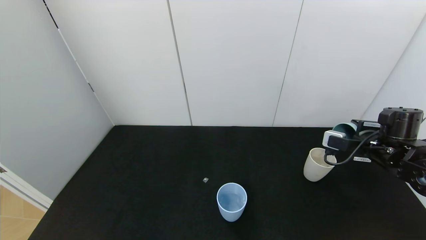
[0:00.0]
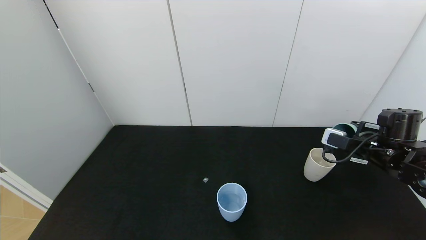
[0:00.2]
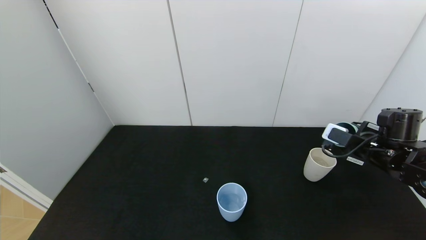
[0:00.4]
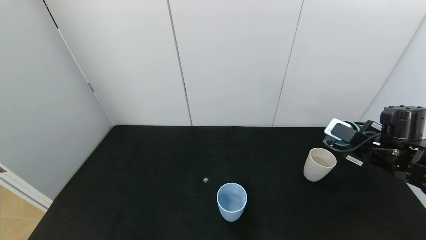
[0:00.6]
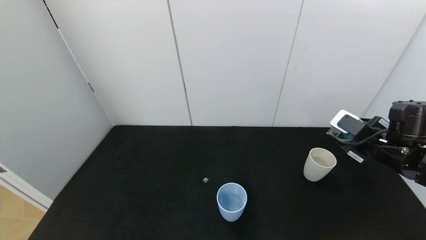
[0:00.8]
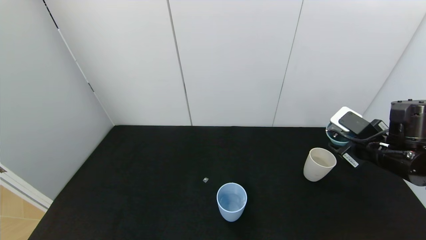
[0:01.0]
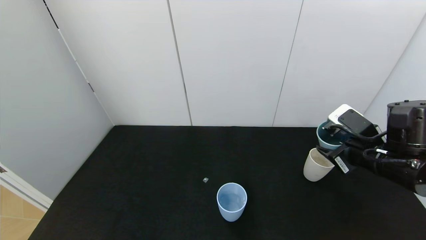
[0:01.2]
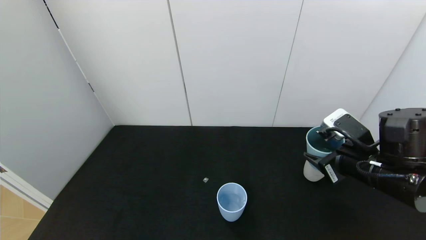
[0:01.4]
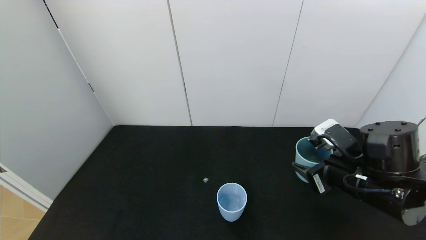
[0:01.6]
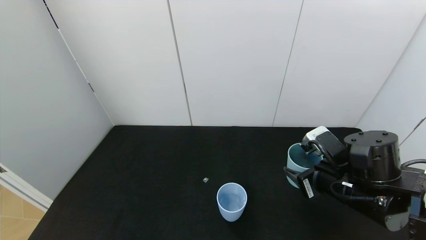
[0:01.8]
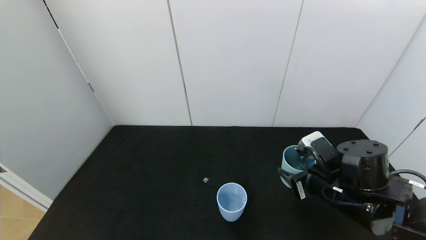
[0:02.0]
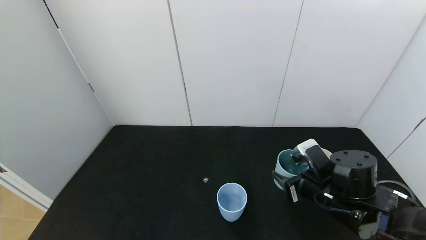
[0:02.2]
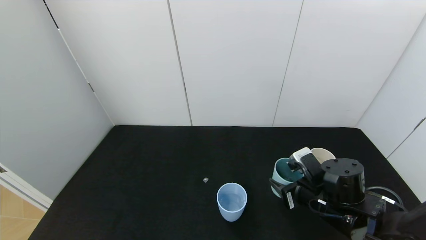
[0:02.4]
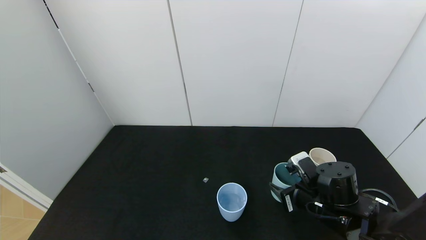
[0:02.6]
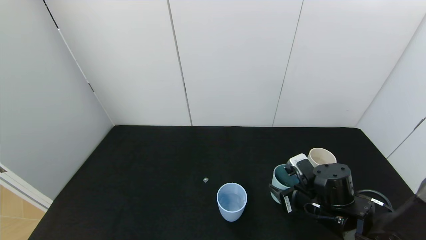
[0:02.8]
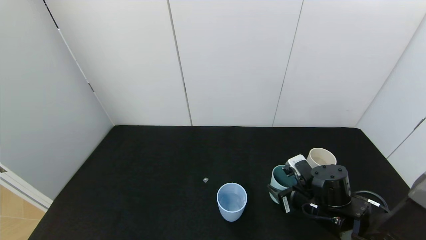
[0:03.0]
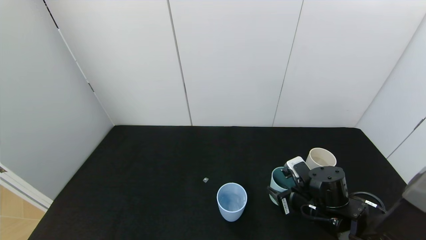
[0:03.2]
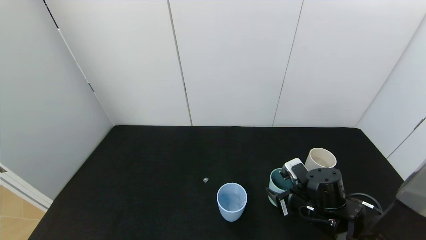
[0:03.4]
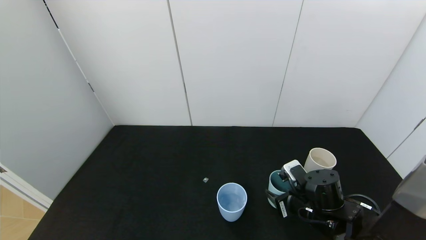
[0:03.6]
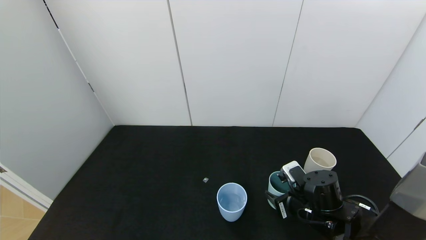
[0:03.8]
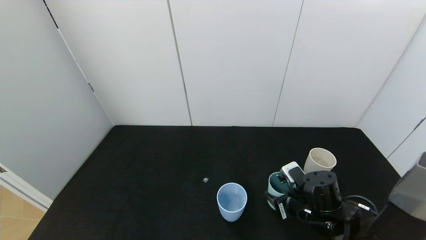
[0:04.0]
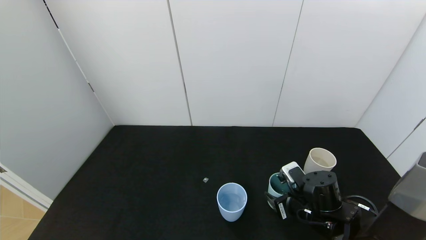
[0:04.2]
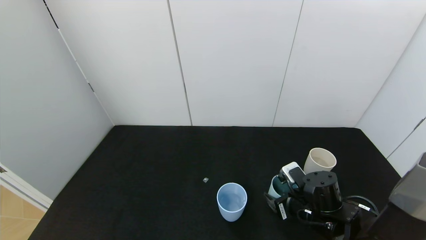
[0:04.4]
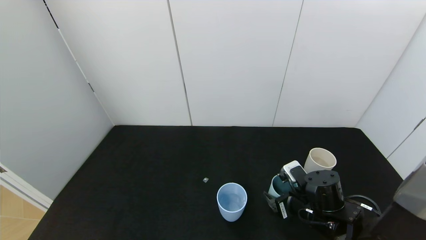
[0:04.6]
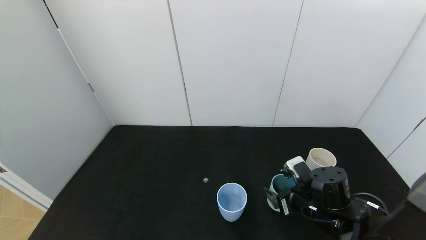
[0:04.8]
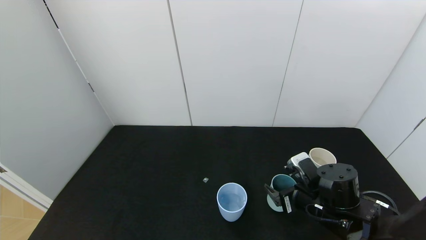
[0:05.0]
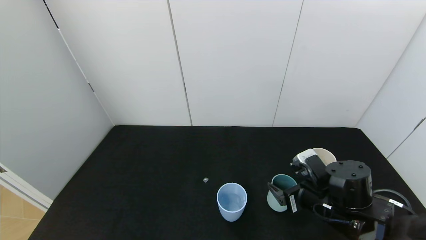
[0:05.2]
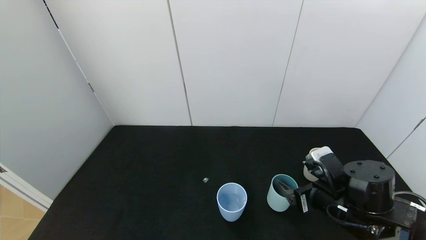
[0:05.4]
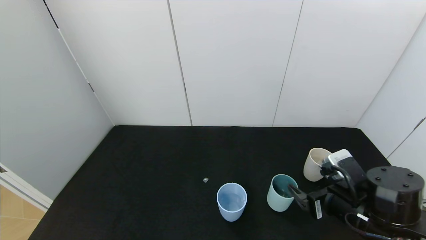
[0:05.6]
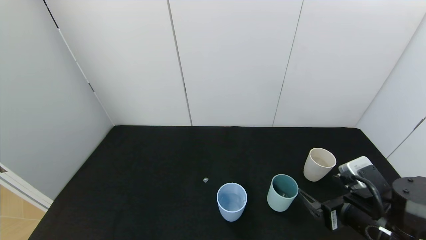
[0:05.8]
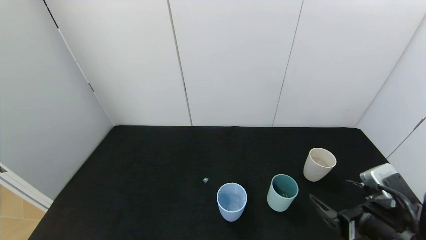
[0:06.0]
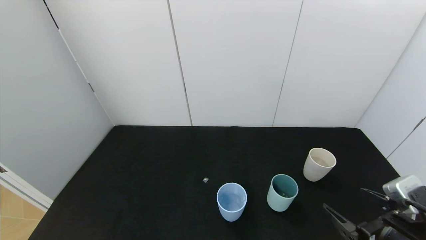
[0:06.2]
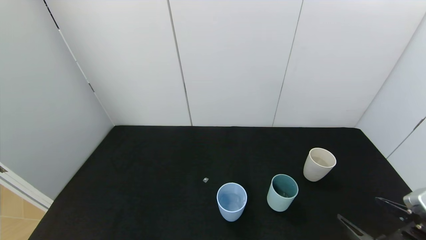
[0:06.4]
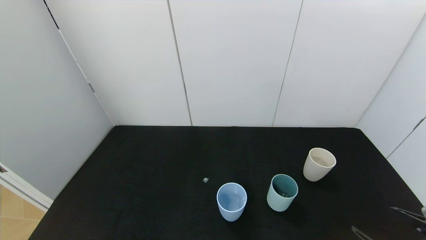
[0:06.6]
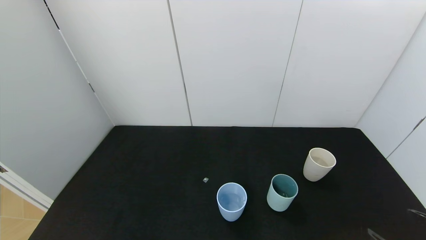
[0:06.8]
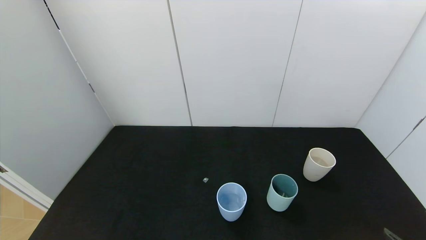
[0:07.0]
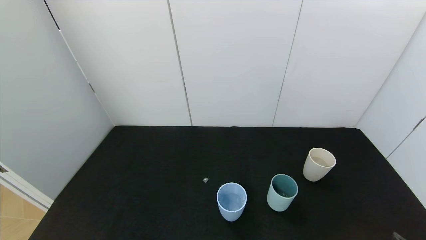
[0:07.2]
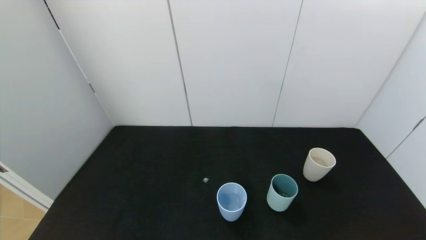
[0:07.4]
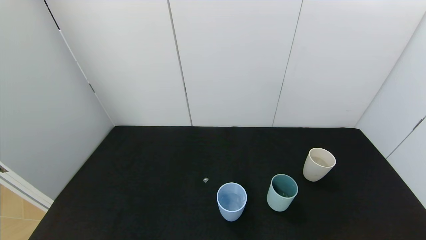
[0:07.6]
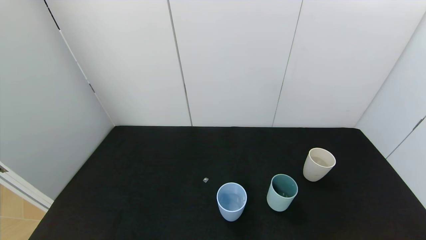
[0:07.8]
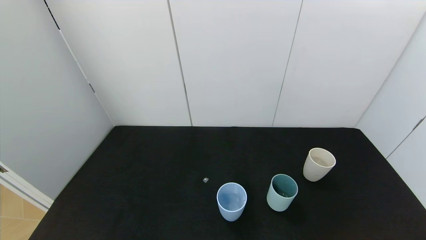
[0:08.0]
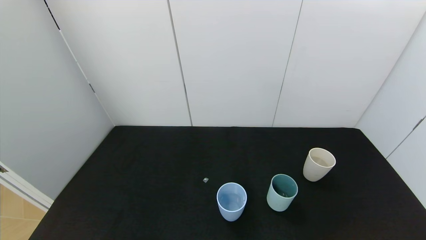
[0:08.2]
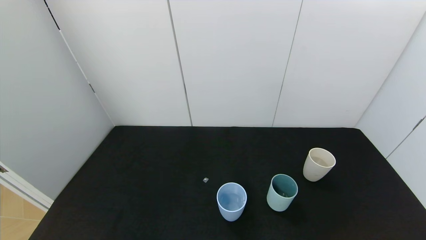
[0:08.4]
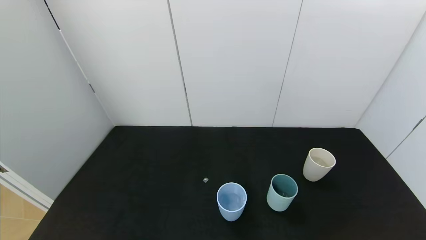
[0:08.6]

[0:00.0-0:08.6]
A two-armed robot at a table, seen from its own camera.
Task of the whole recording: use the gripper to pour the water into the other two cups on black table.
Step, 0:01.0 to 0:04.8: Place the green plastic cup on the table with right gripper.
0:00.0 to 0:01.4: The right gripper shifts roughly 15 cm to the left and backward.
0:01.4 to 0:02.8: The right gripper travels downward by approximately 10 cm.
0:02.8 to 0:04.4: The right gripper opens up.
0:04.4 to 0:05.8: The right gripper goes some 10 cm backward, upward and to the right, and opens its fingers.
0:05.8 to 0:07.2: The right gripper is displaced backward and to the right by roughly 15 cm.
